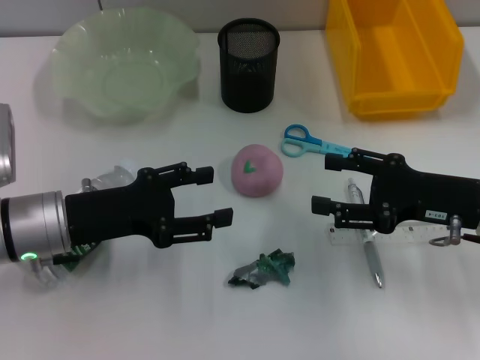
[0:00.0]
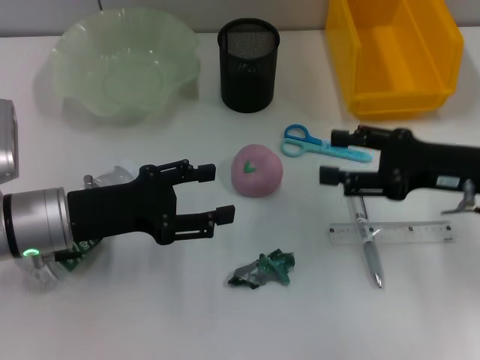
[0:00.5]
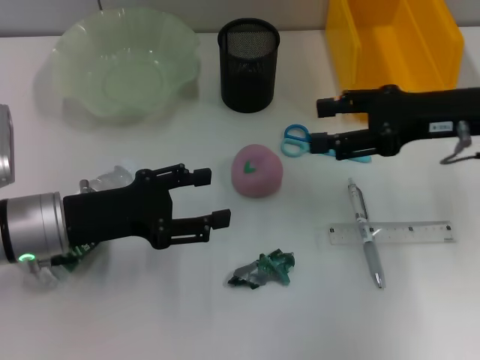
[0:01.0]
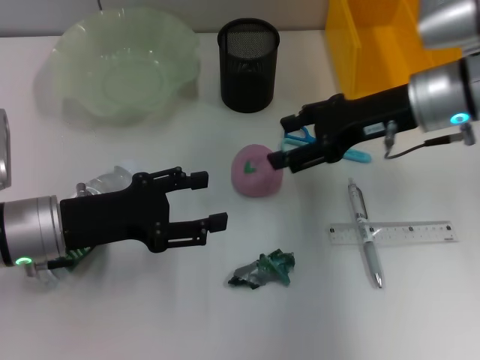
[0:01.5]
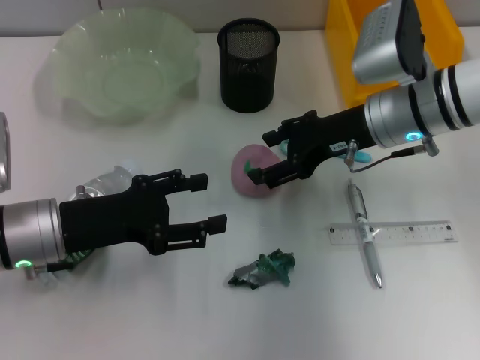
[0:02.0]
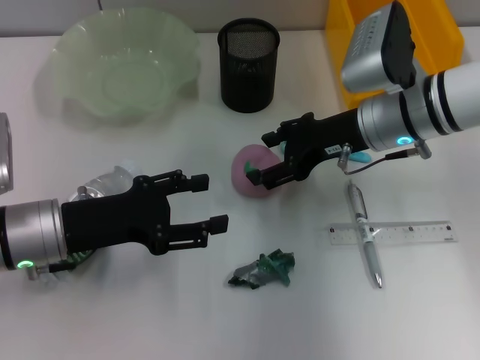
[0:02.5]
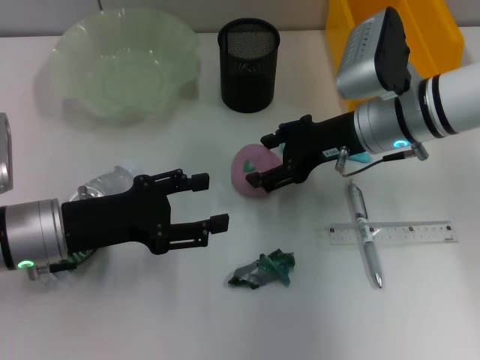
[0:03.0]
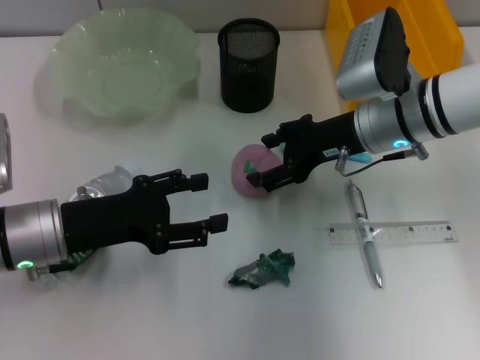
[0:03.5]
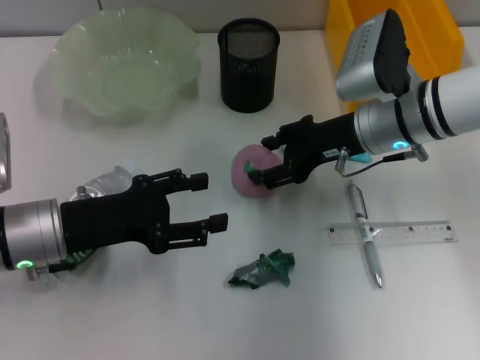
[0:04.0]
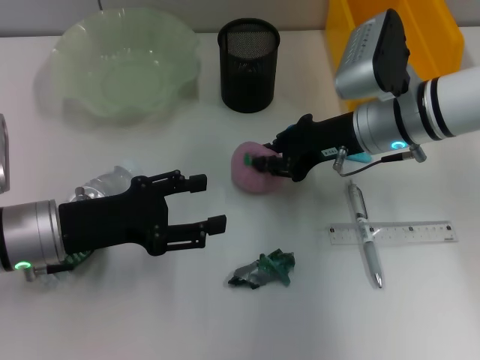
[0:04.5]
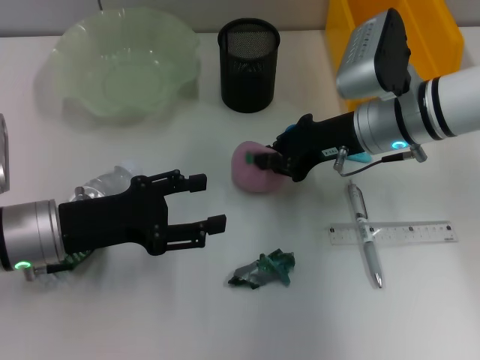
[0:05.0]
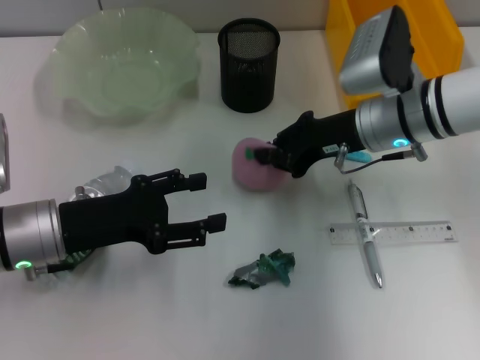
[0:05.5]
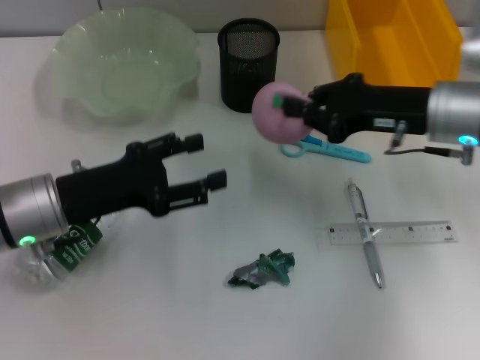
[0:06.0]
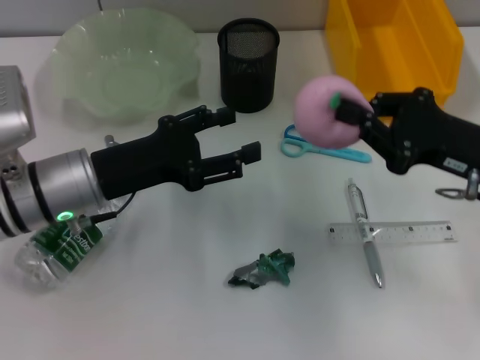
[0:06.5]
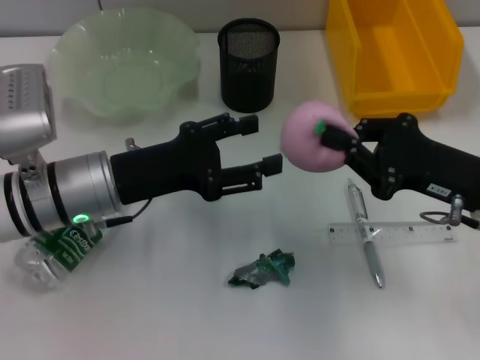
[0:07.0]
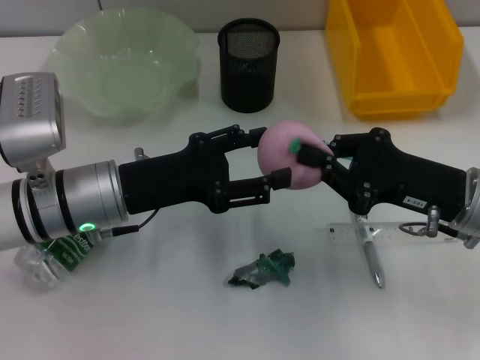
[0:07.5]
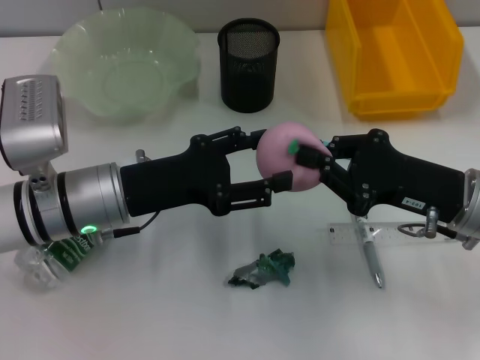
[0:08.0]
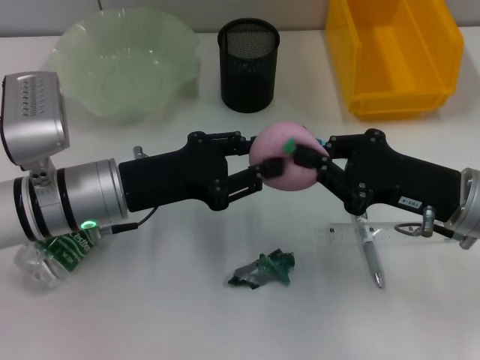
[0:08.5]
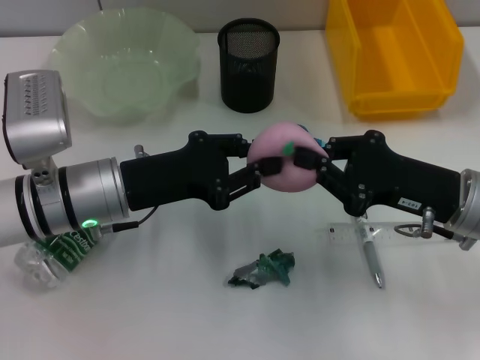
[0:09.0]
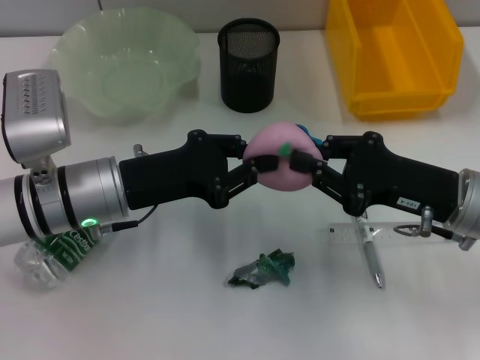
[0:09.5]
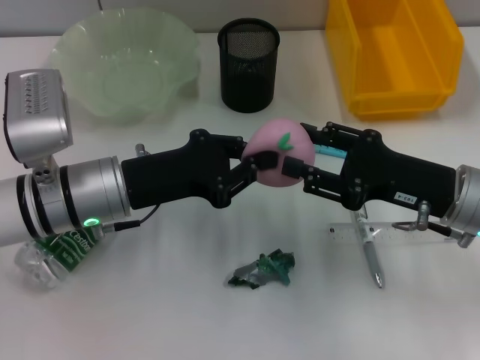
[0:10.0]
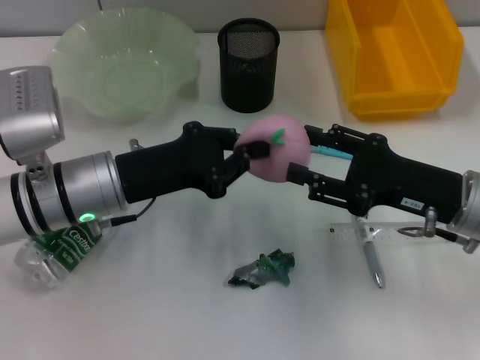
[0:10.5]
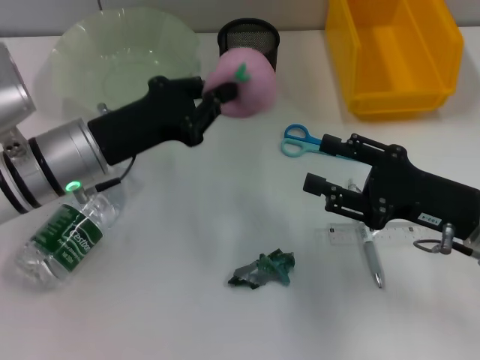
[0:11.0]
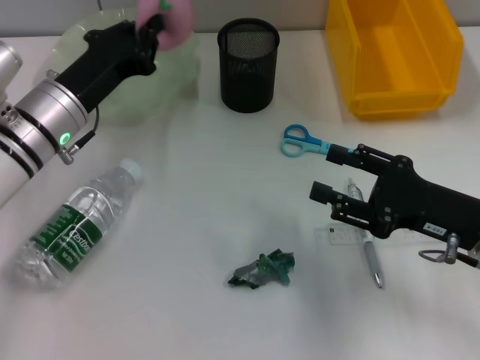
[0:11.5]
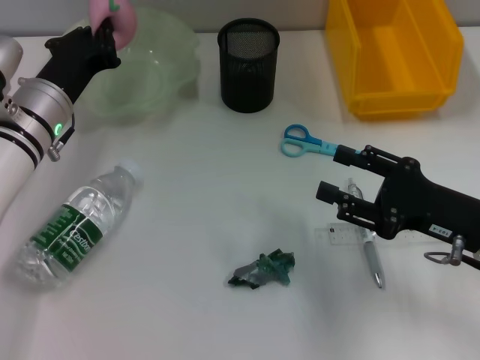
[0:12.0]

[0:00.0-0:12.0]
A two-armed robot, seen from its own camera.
Step, 0:00.0 to 0:05.0: Grab the peach with the right hand.
Step, 0:05.5 to 0:10.0: Pass the peach from the right hand to the left hand.
0:00.0 to 0:02.0: The right gripper travels forward and to the left by about 15 cm.
0:02.0 to 0:04.0: The grippers move only a little.
0:04.0 to 0:06.0: The right gripper is displaced to the right by approximately 5 cm, and closes its fingers.
0:06.0 to 0:08.0: The right gripper moves backward, about 10 cm. The left gripper travels to the right by approximately 5 cm.
0:08.0 to 0:10.0: The right gripper opens its fingers; the left gripper closes its fingers.
0:10.0 to 0:12.0: The left gripper moves forward, roughly 5 cm.

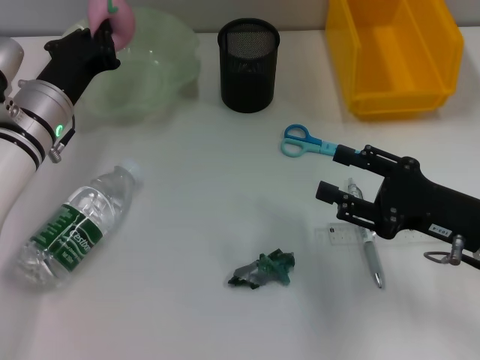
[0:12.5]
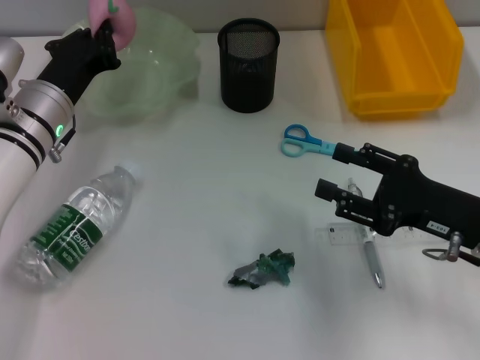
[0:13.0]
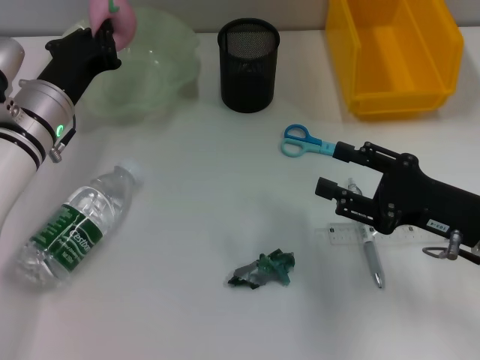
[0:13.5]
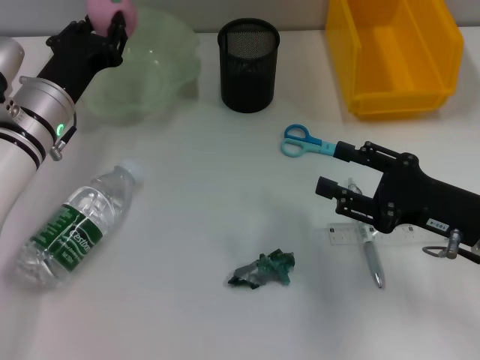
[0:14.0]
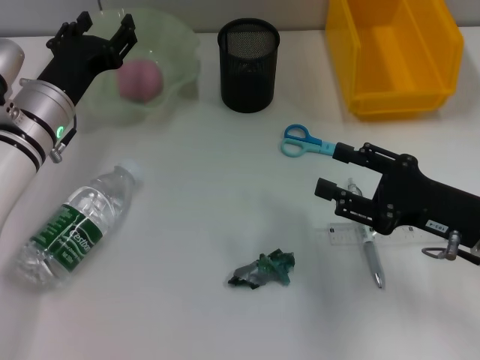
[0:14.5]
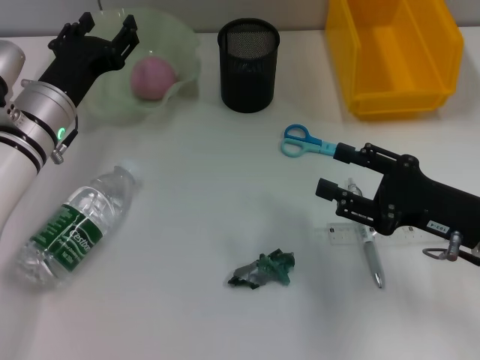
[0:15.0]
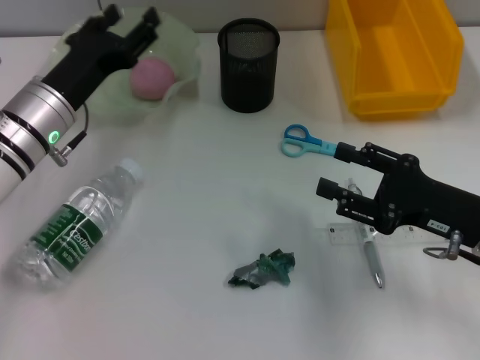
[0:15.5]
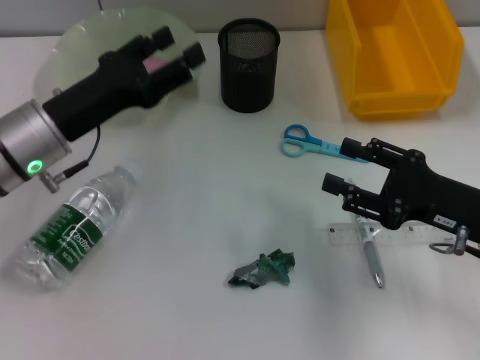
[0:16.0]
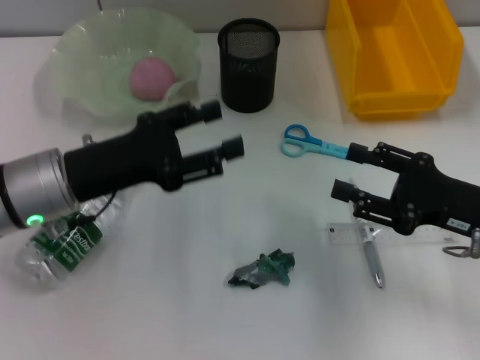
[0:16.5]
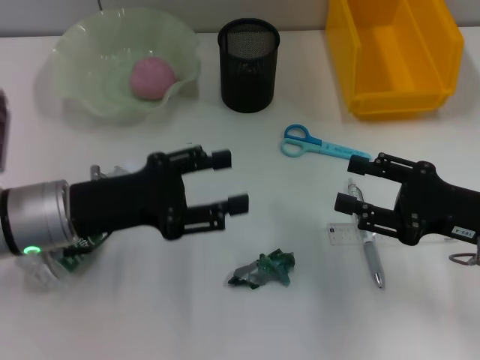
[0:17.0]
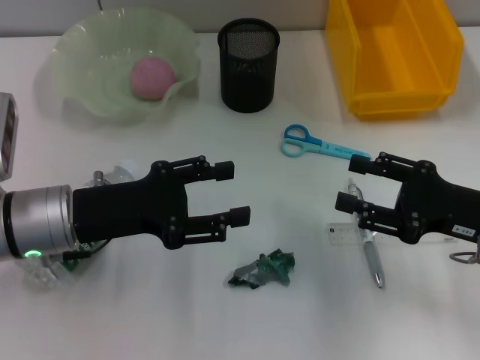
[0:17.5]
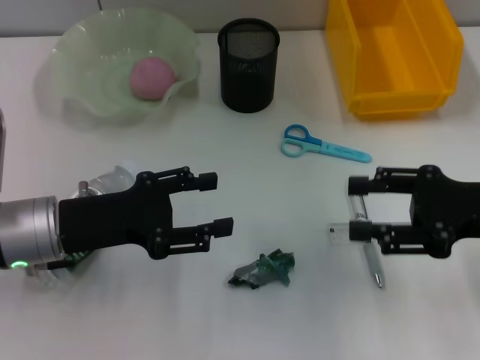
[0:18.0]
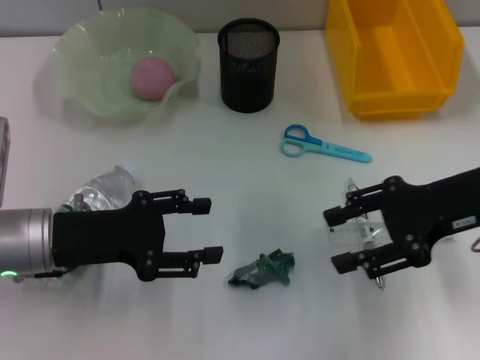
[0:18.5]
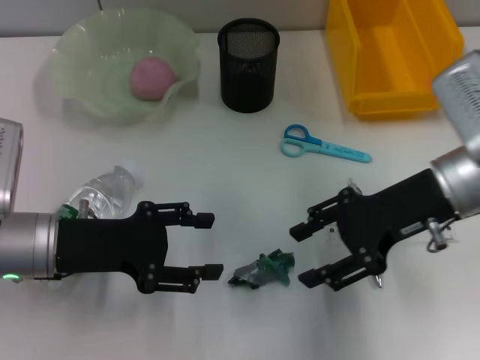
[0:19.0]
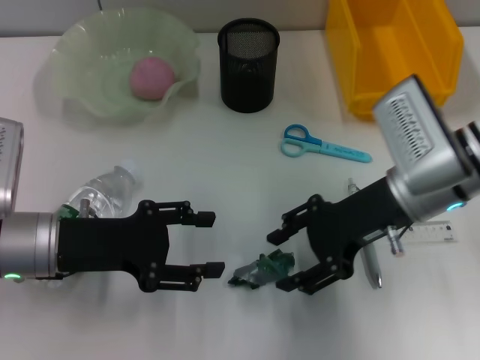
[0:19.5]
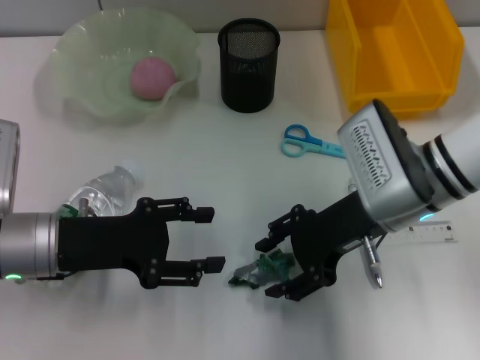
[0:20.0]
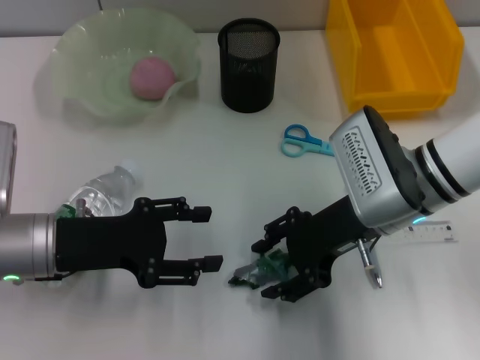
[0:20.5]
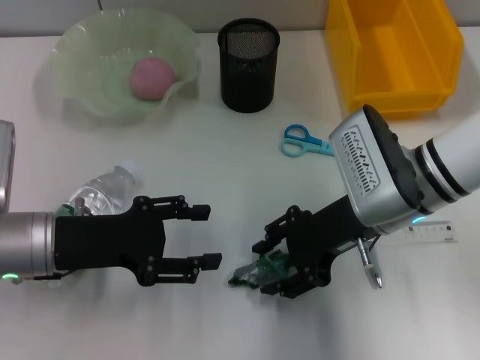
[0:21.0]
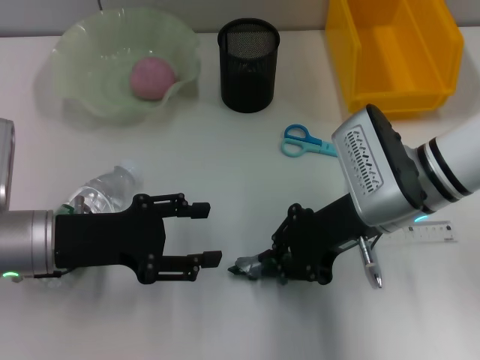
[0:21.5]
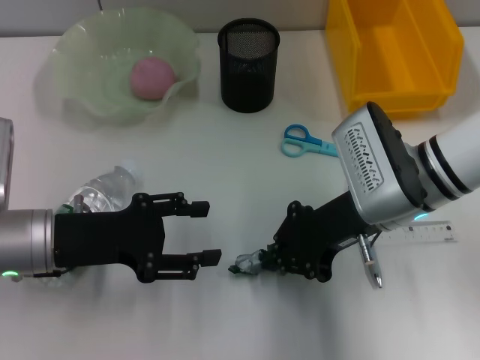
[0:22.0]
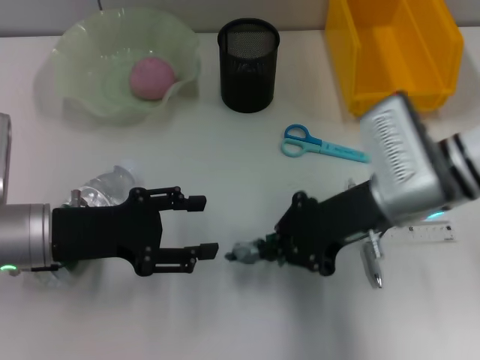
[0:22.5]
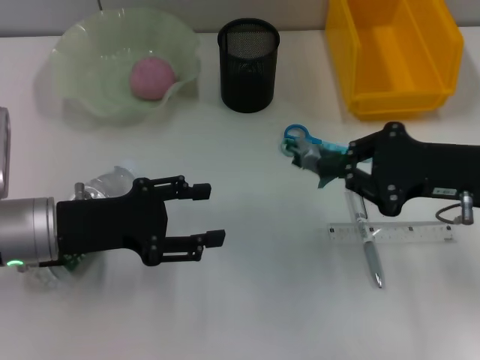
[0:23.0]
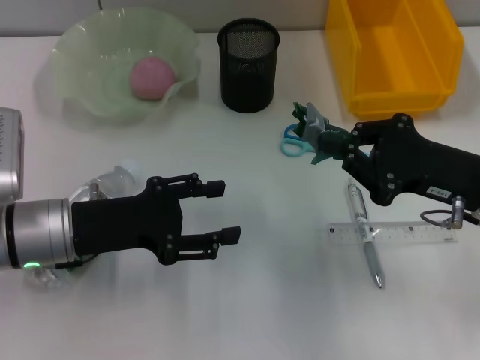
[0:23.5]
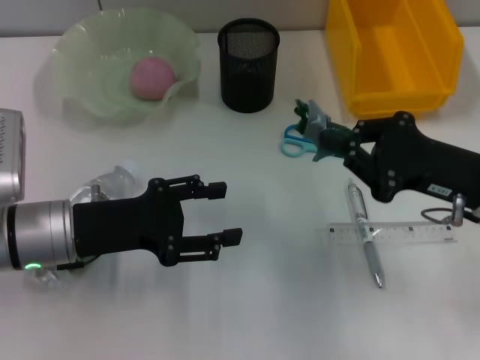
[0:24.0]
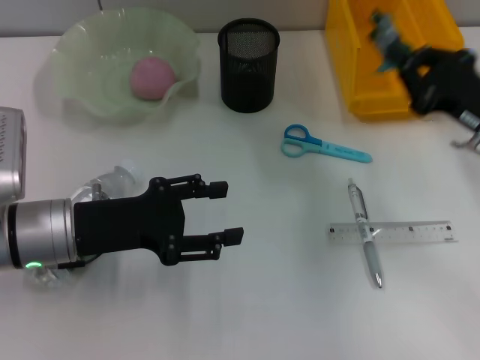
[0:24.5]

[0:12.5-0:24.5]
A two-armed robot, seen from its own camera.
Step, 0:12.5 to 0:15.0: Place the peach into the fruit bowl with the left hand.
Step, 0:15.5 to 0:21.5: Grab the plastic with the right hand.
0:12.5 to 0:14.5: The left gripper opens.
0:14.5 to 0:16.5: The left gripper is displaced backward by about 10 cm.
0:16.5 to 0:18.5: The right gripper goes roughly 5 cm upward.
0:18.5 to 0:20.5: The right gripper moves to the left, roughly 10 cm.
0:20.5 to 0:22.5: The right gripper closes up.
0:22.5 to 0:24.5: The right gripper goes roughly 10 cm to the right.

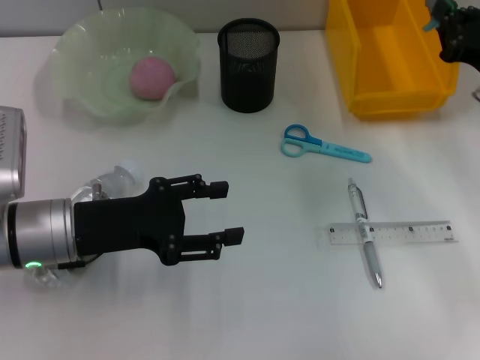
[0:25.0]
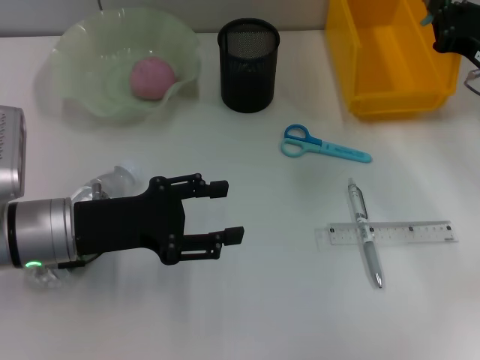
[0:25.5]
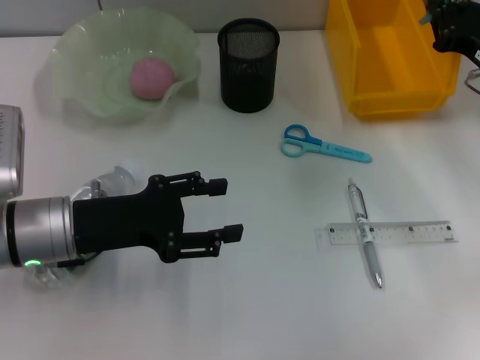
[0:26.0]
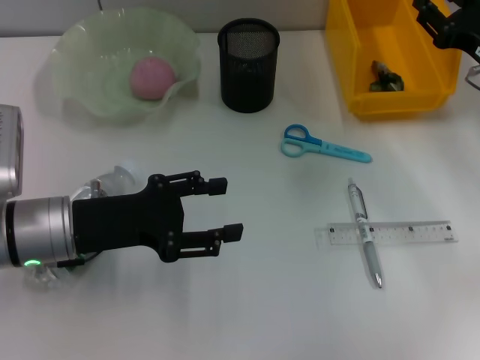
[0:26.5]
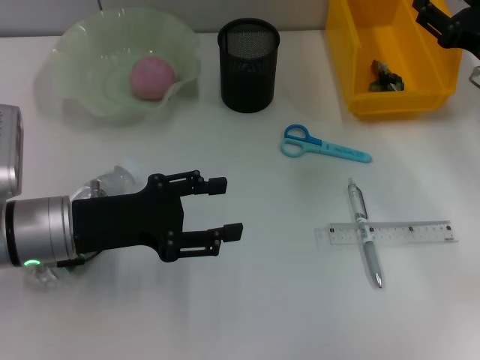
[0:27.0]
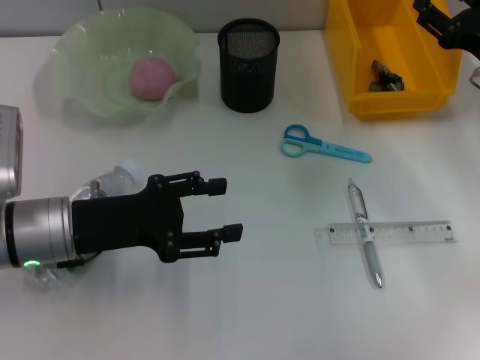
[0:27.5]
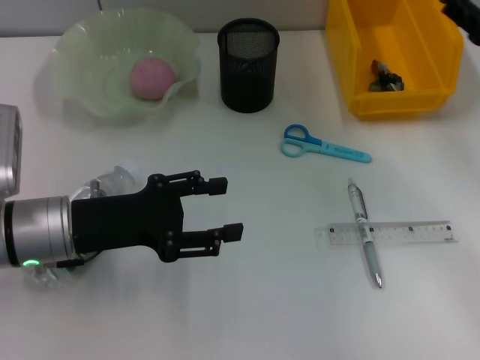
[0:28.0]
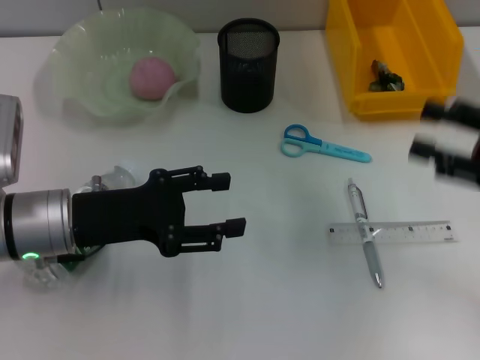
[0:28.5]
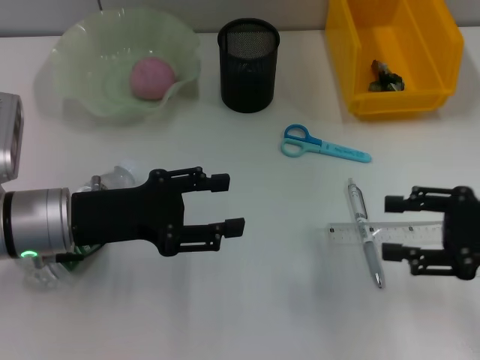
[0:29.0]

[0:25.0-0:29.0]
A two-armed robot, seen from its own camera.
0:25.0 to 0:27.0: The right gripper opens its fingers.
0:27.0 to 0:29.0: The right gripper travels backward by roughly 10 cm.
